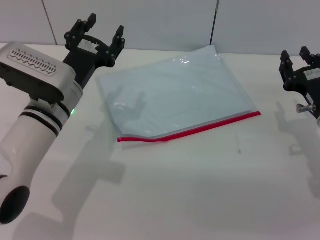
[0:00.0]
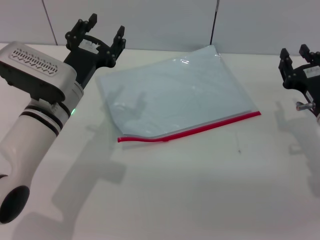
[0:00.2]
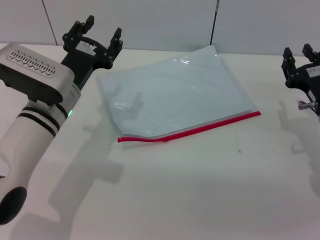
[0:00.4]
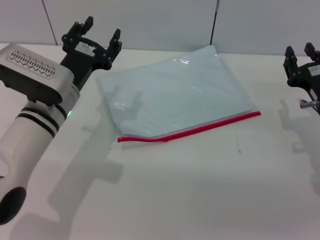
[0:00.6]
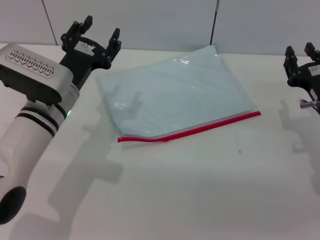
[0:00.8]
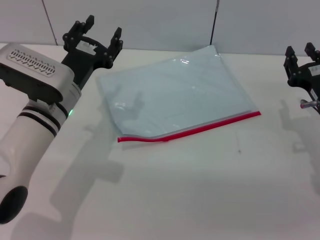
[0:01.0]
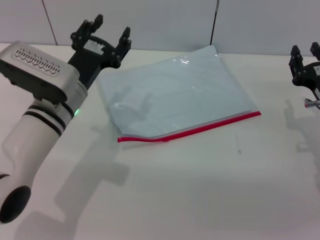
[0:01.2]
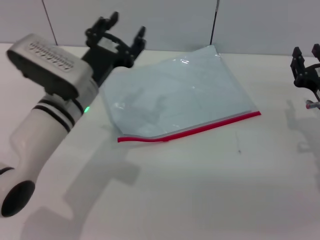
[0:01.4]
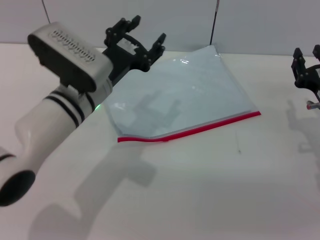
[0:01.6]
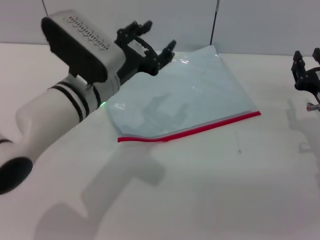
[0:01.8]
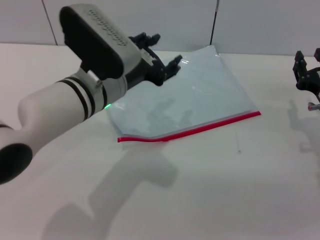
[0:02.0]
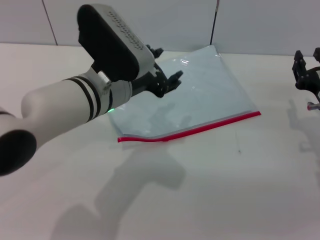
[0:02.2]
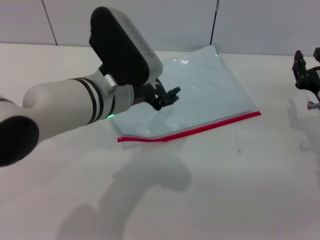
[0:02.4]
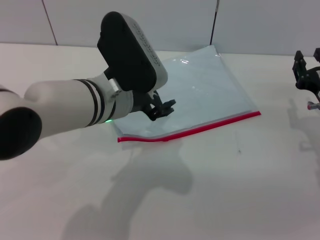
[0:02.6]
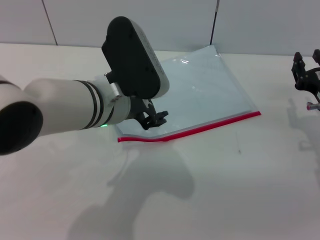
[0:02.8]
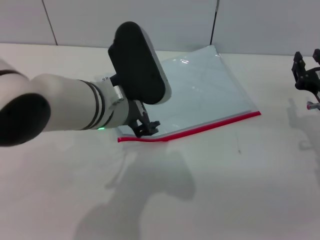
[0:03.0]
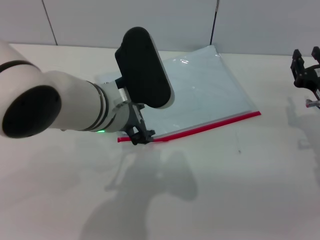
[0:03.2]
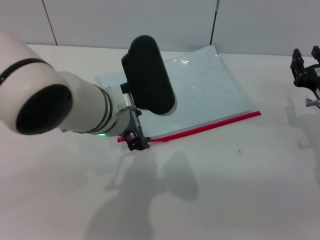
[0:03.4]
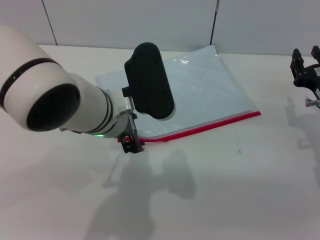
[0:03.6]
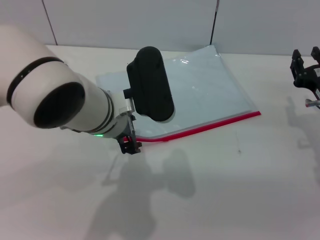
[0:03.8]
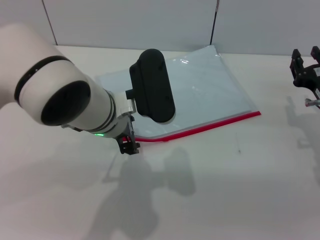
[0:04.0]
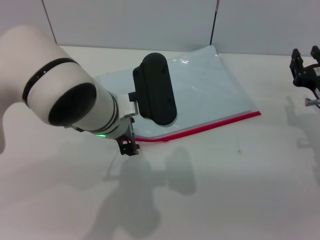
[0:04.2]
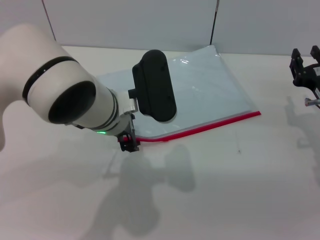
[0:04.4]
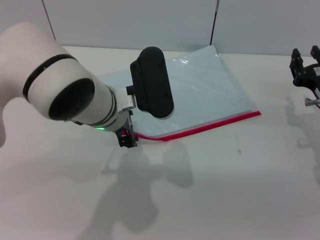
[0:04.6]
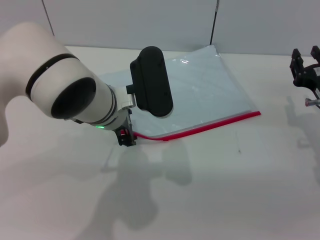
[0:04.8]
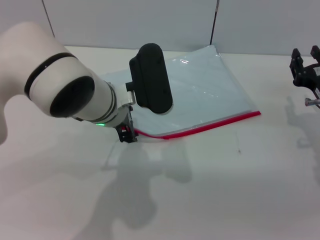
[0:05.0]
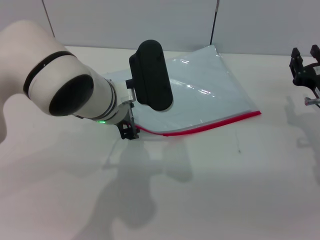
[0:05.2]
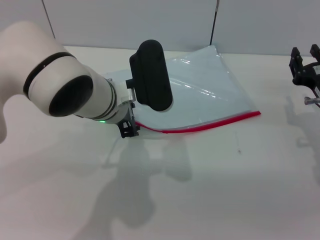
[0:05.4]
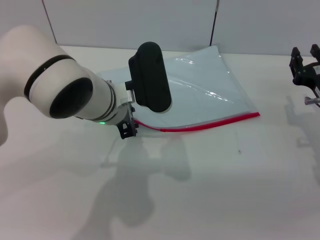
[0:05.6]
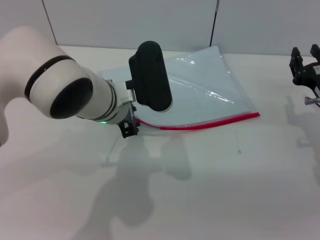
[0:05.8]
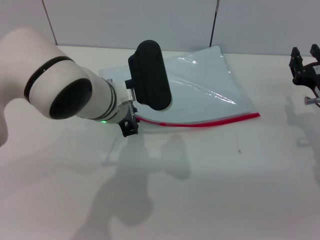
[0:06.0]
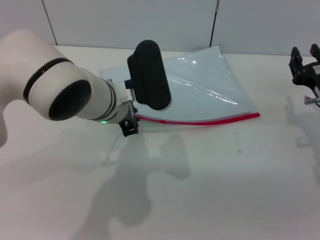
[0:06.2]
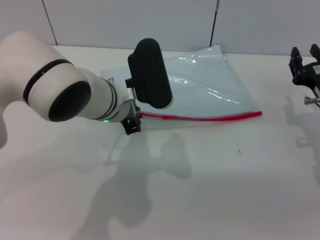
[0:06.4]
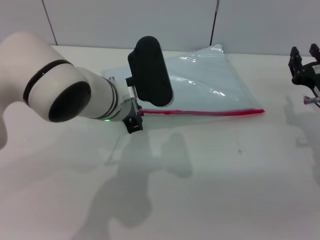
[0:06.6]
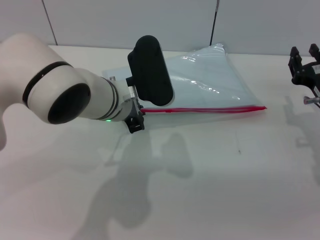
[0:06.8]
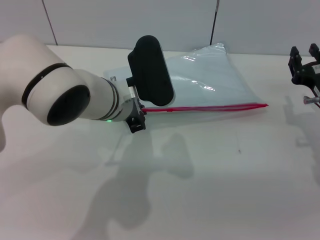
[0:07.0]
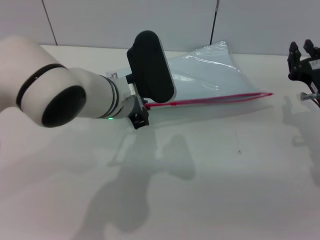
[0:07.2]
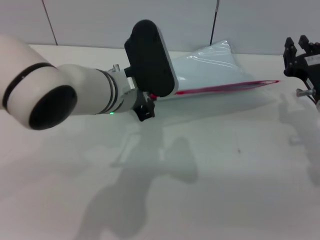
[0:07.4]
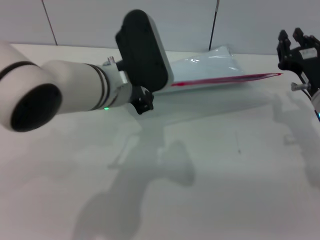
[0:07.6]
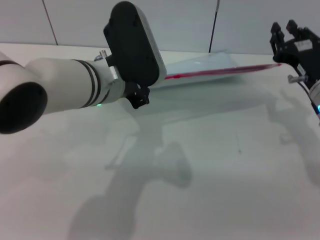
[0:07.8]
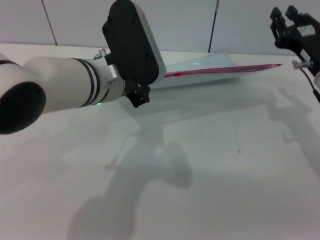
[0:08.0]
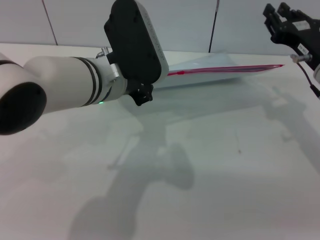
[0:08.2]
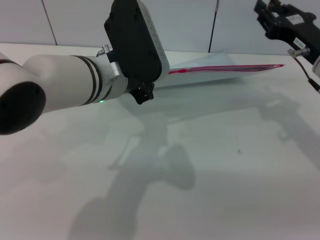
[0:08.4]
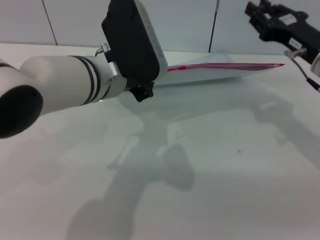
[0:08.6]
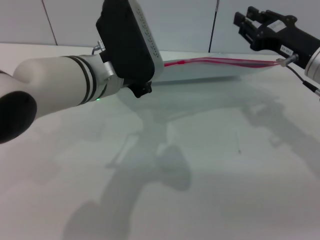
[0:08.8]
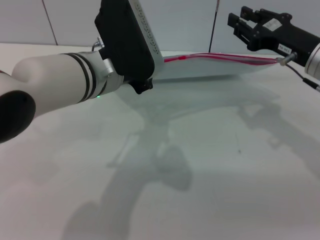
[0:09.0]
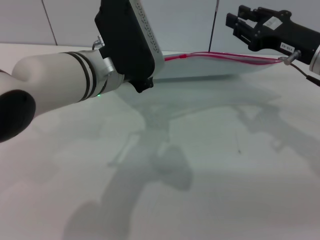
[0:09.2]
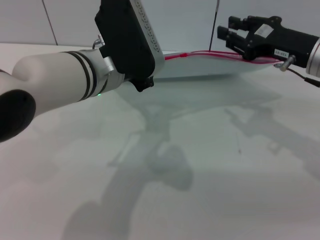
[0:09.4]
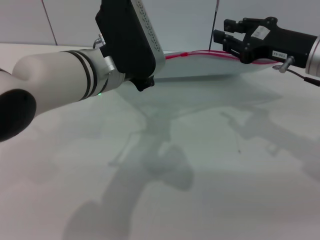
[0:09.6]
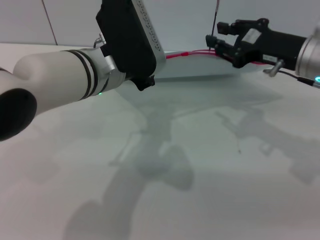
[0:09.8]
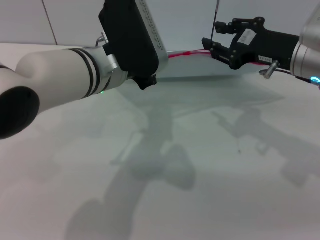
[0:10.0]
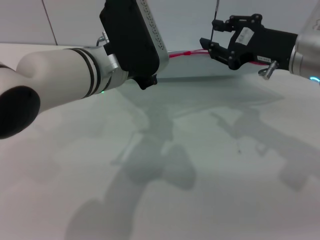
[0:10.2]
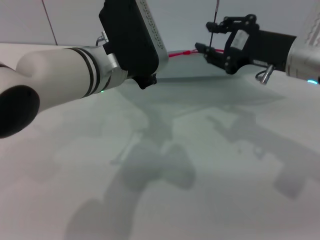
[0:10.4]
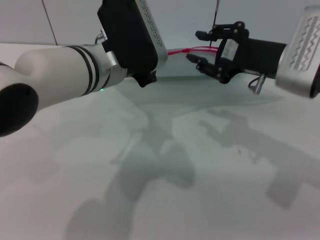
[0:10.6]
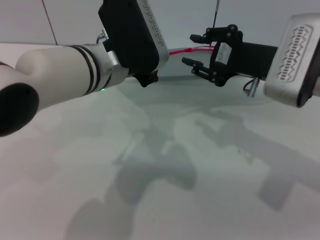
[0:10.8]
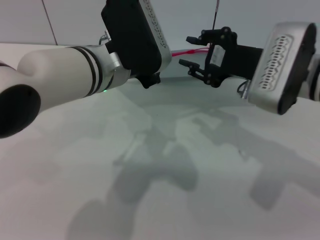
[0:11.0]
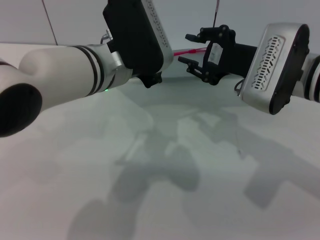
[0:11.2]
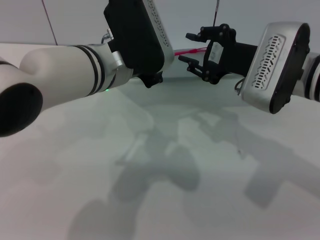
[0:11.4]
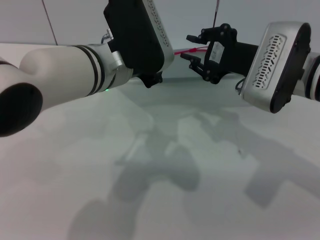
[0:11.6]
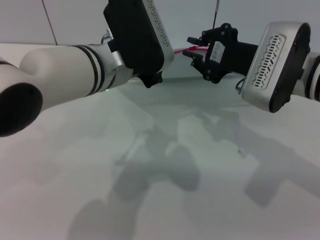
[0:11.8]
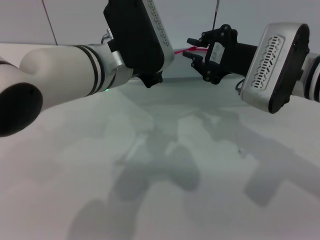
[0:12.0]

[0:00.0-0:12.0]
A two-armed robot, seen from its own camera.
Step, 0:00.0 to 0:06.8: Pick up the transparent plastic bag with the left gripper.
0:00.0 to 0:01.6: The grippers stay close to where they were, moving slightly.
0:01.6 to 0:03.0: The left gripper goes some 5 cm upward.
0:03.0 to 0:04.4: There are only small adjustments of the grippers.
0:04.4 to 0:06.0: The left gripper closes.
0:06.0 to 0:07.6: The right gripper closes its fingers.
0:07.6 to 0:09.0: The right gripper shifts about 10 cm upward.
0:10.4 to 0:12.0: The right gripper closes up.

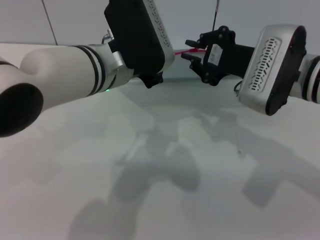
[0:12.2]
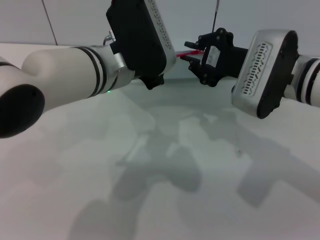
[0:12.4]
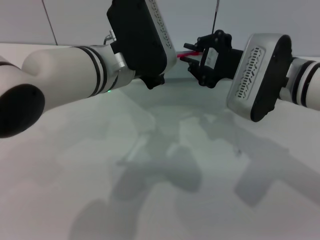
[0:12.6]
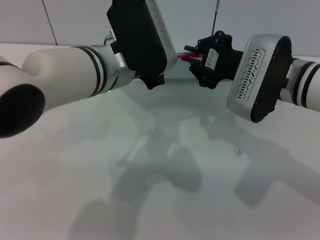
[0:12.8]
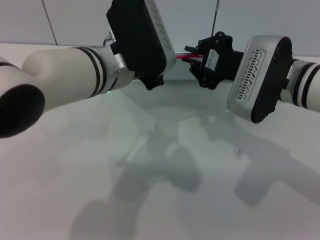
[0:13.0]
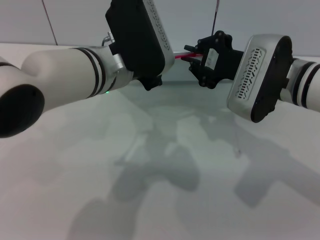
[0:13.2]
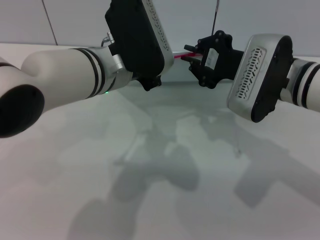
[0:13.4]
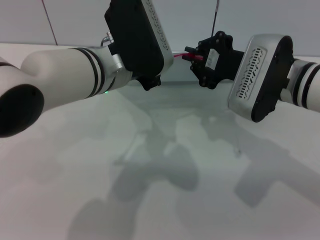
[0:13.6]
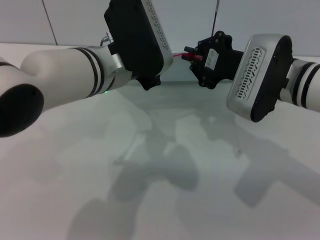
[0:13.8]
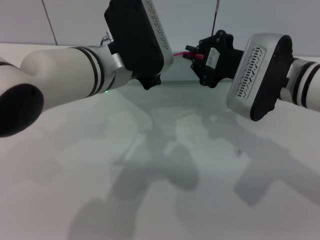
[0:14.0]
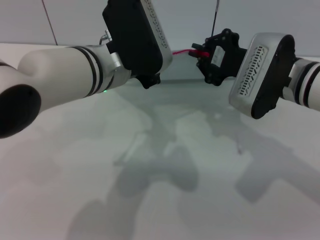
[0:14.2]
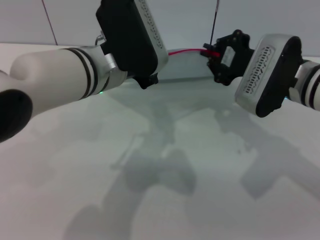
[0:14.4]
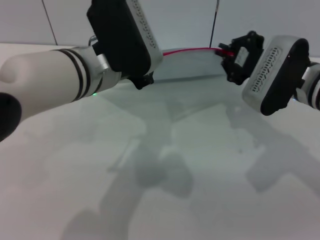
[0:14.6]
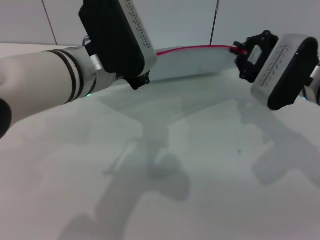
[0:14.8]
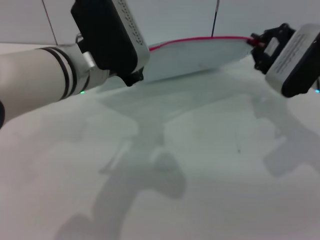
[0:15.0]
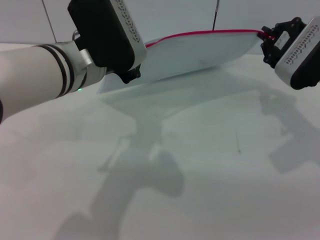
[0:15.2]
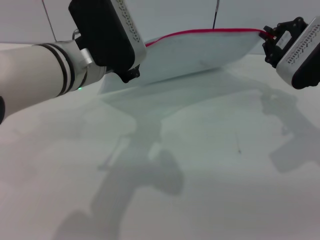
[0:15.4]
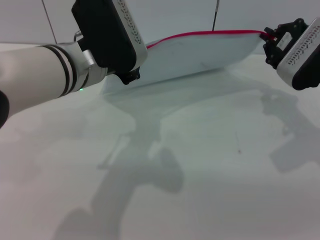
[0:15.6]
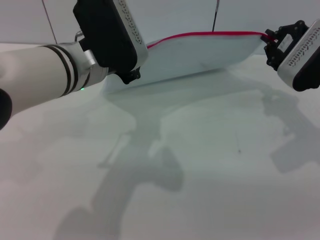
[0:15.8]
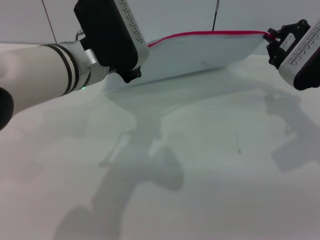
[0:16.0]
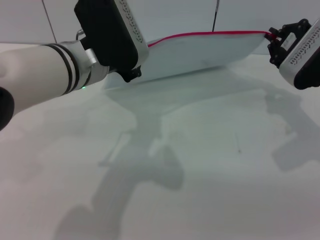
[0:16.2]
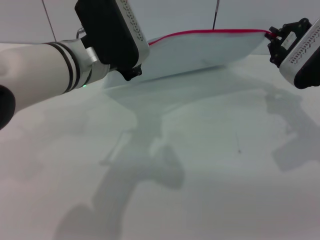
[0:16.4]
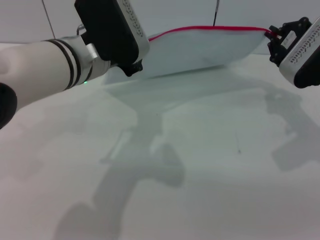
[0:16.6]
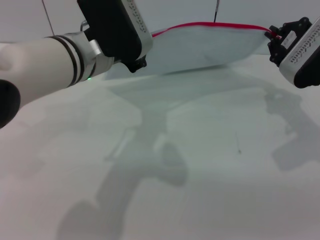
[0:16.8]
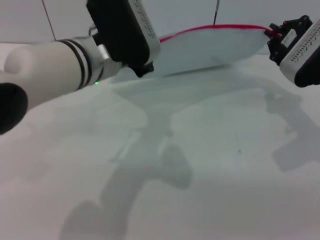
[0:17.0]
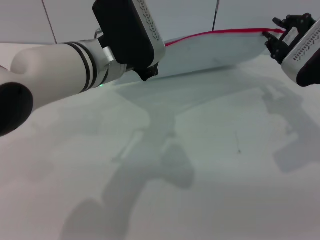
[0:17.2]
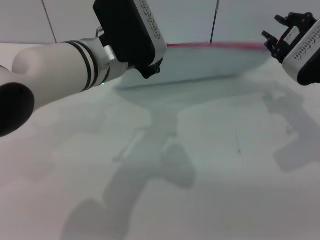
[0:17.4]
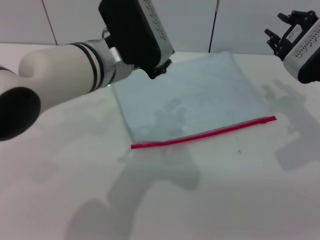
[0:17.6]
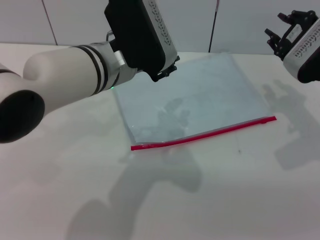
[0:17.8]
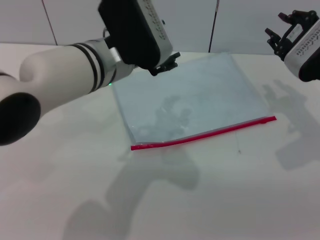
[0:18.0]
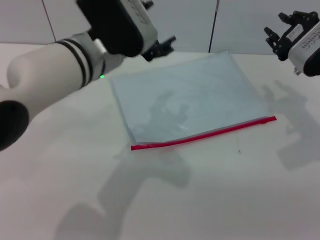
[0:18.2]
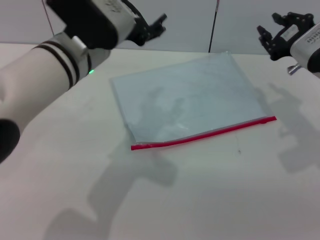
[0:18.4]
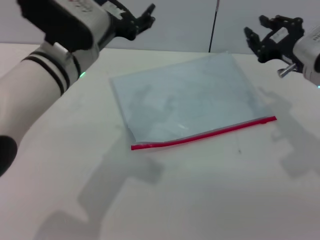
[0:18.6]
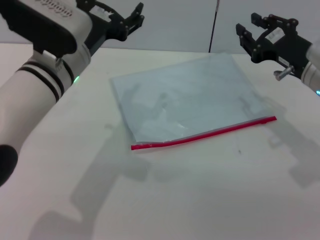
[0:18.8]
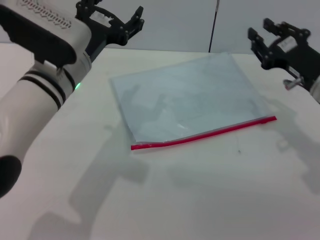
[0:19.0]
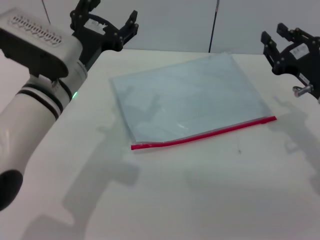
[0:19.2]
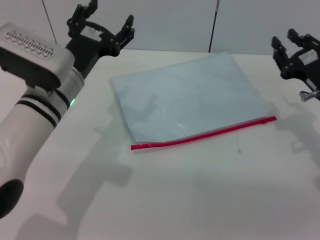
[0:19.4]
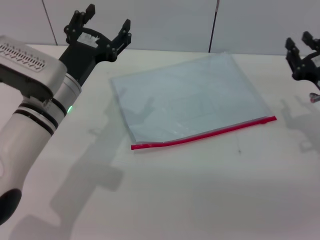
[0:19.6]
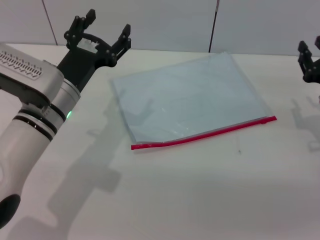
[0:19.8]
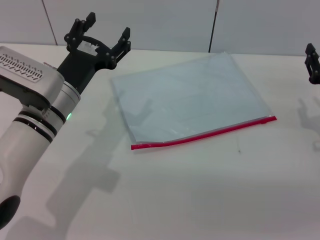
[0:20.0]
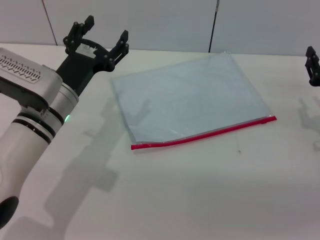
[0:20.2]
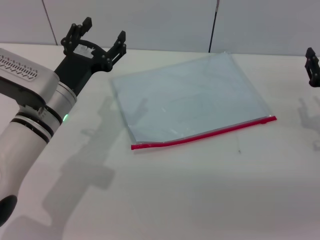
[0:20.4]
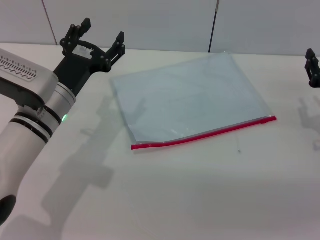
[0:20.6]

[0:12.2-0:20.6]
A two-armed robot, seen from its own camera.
Step, 0:12.2 to 0:17.4: Pulling up the zipper on the transparent plastic bag with the right gripper to close it.
Step, 0:17.6 to 0:18.4: Place the transparent plastic bag.
0:12.2 to 0:13.6: The two grippers keep their place.
0:13.6 to 0:15.0: The right gripper moves to the right, about 5 cm.
0:15.0 to 0:16.4: The grippers make only small movements.
0:16.4 to 0:17.8: The left gripper opens. The right gripper opens.
0:17.8 to 0:19.2: The right gripper shifts by some 5 cm. Meanwhile the left gripper travels to the left and downward by approximately 10 cm, and opens up.
0:19.2 to 0:20.6: The left gripper shifts roughly 5 cm downward; the right gripper moves roughly 5 cm.
